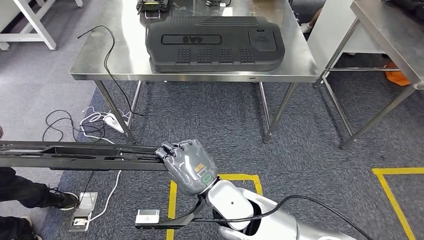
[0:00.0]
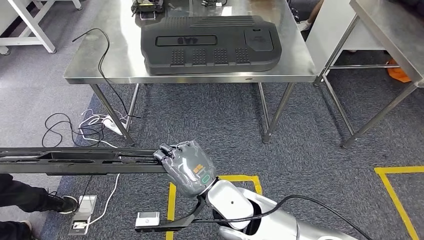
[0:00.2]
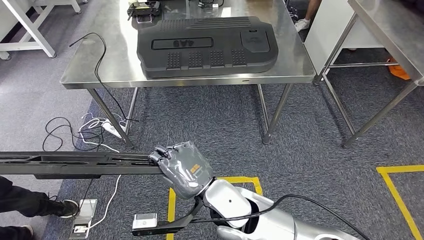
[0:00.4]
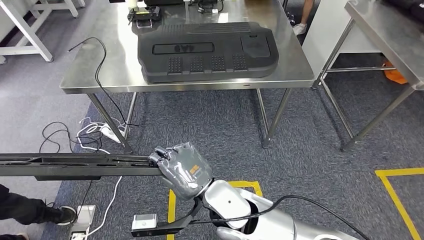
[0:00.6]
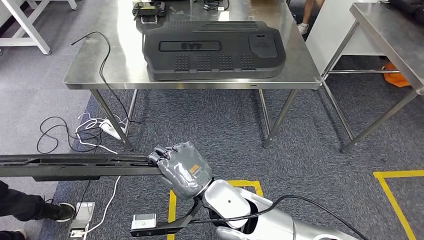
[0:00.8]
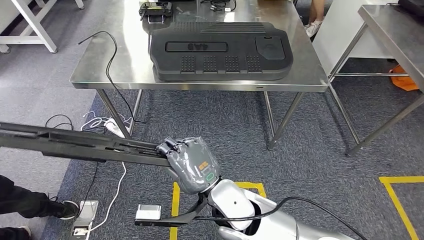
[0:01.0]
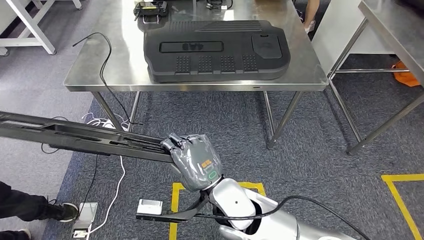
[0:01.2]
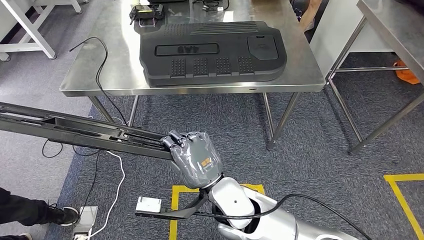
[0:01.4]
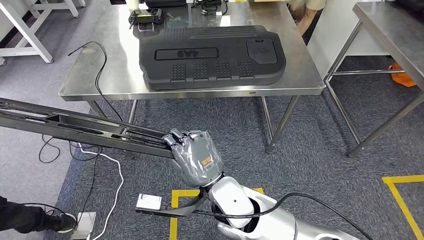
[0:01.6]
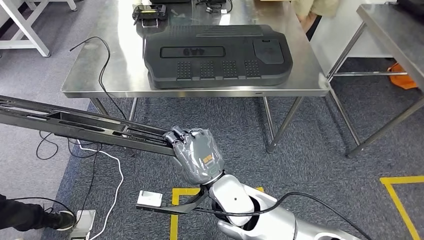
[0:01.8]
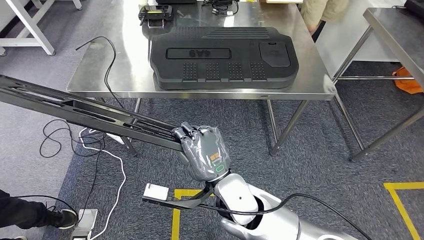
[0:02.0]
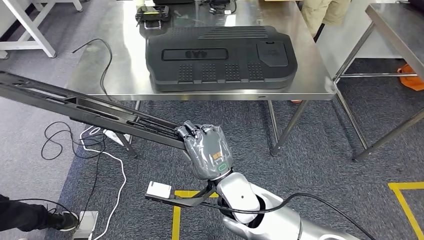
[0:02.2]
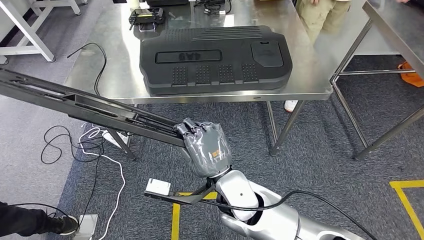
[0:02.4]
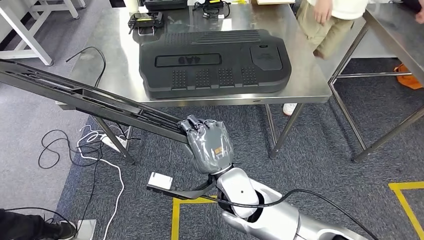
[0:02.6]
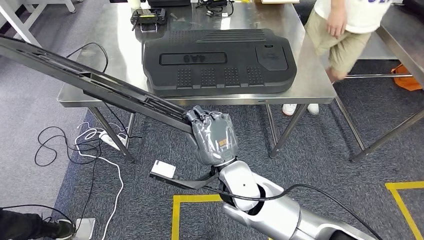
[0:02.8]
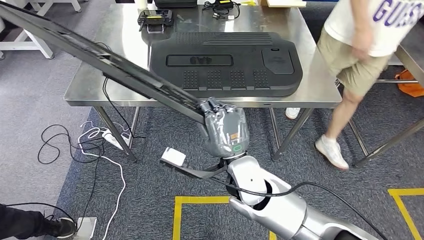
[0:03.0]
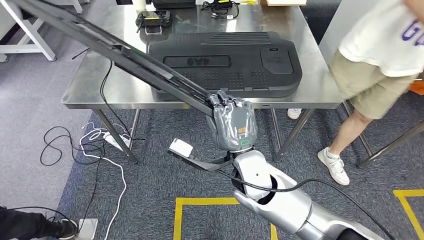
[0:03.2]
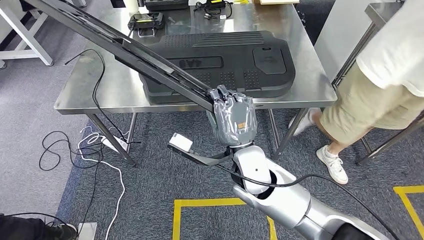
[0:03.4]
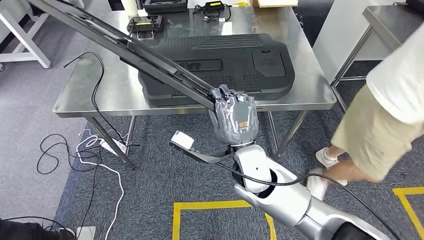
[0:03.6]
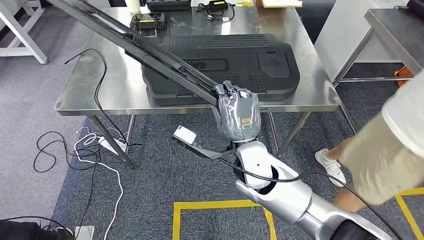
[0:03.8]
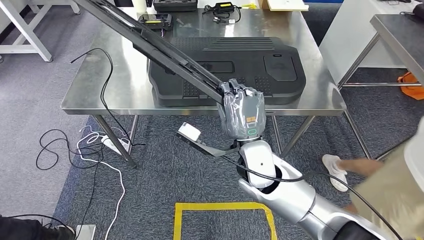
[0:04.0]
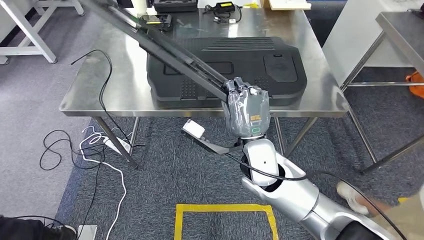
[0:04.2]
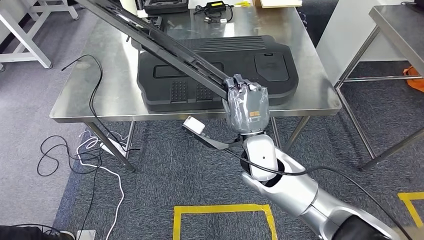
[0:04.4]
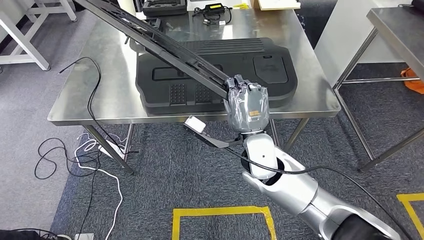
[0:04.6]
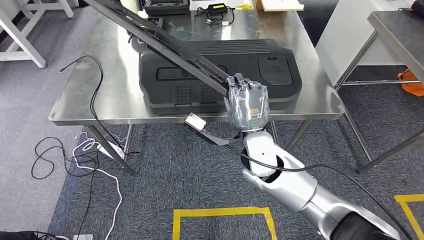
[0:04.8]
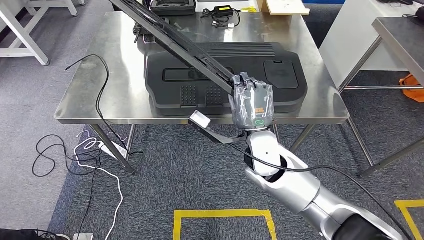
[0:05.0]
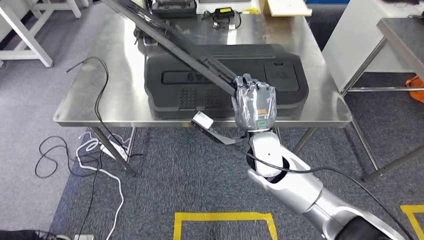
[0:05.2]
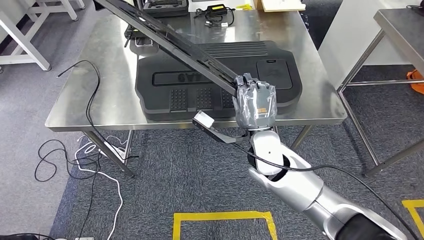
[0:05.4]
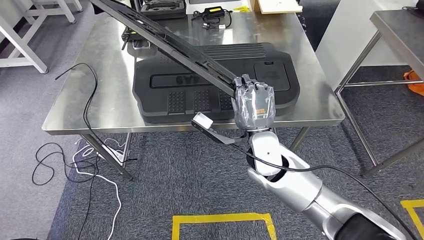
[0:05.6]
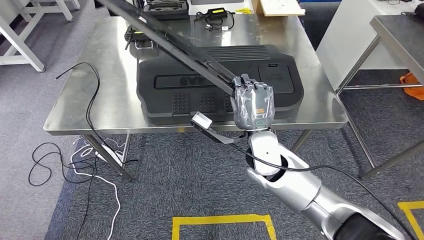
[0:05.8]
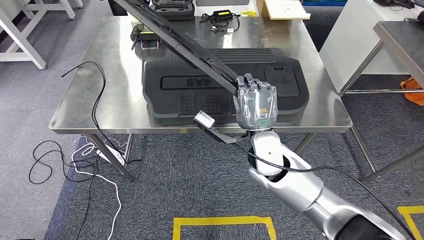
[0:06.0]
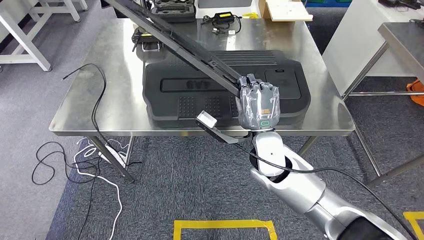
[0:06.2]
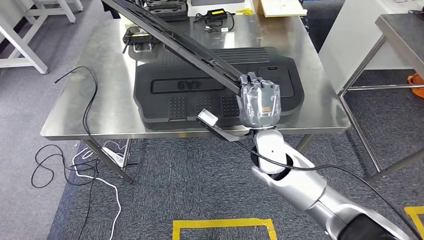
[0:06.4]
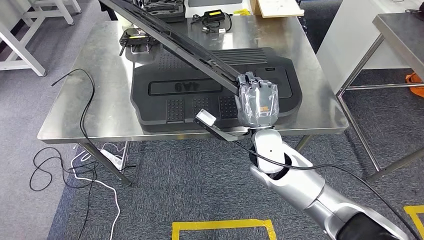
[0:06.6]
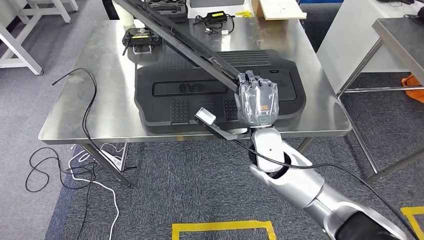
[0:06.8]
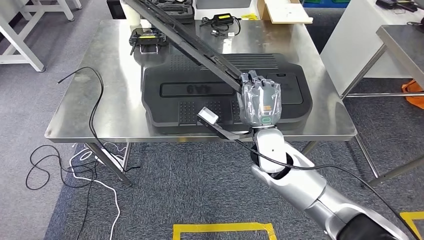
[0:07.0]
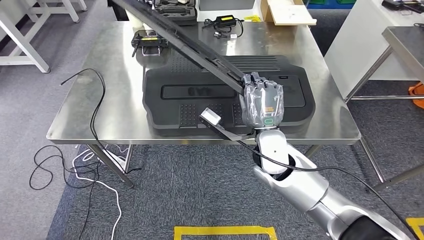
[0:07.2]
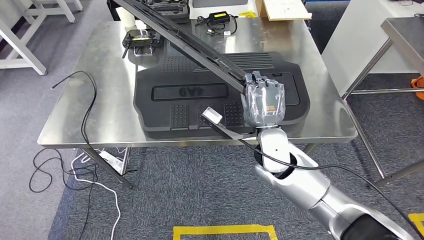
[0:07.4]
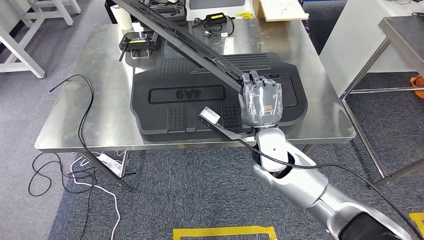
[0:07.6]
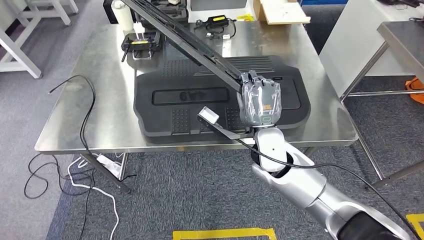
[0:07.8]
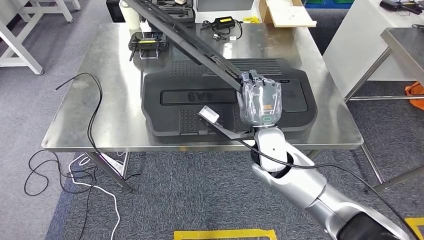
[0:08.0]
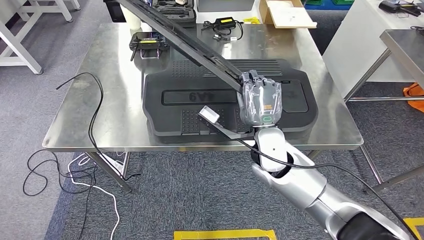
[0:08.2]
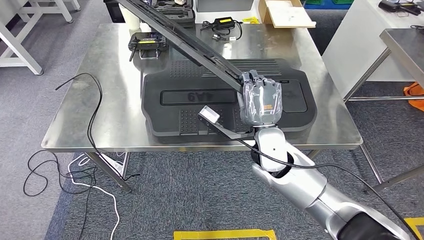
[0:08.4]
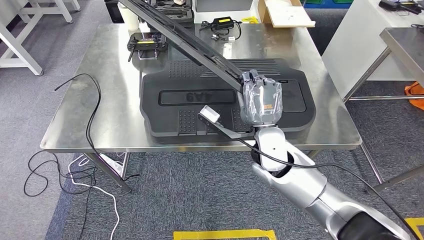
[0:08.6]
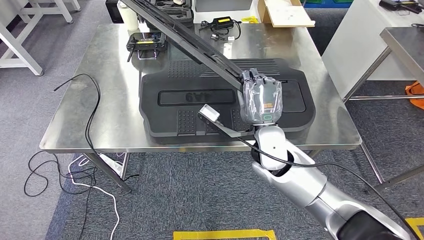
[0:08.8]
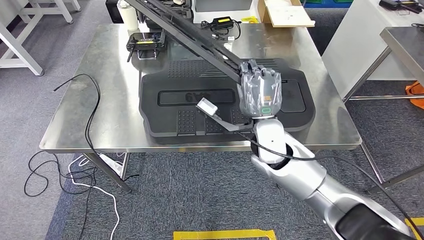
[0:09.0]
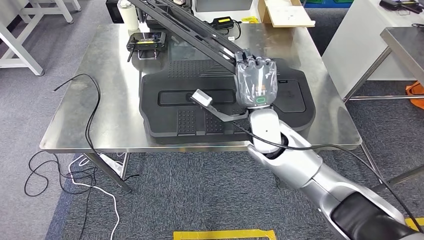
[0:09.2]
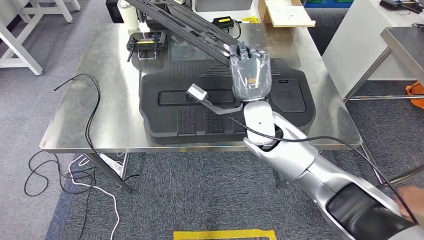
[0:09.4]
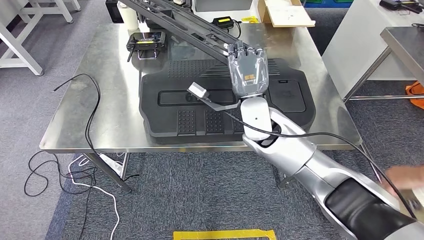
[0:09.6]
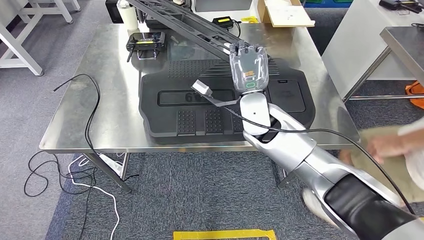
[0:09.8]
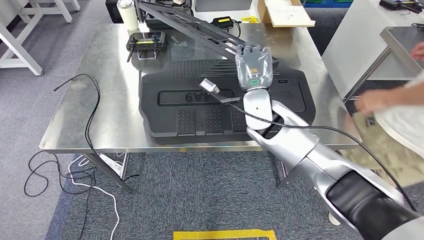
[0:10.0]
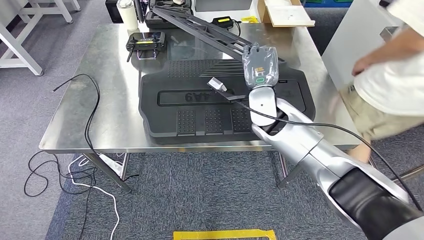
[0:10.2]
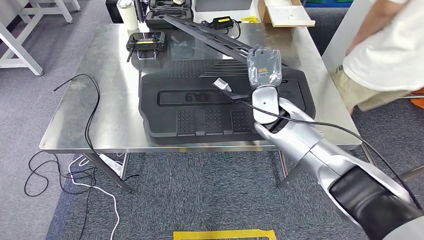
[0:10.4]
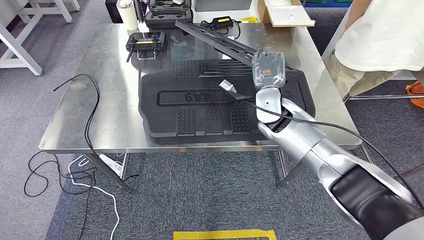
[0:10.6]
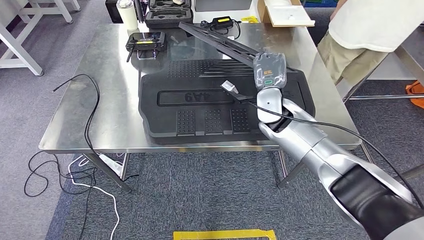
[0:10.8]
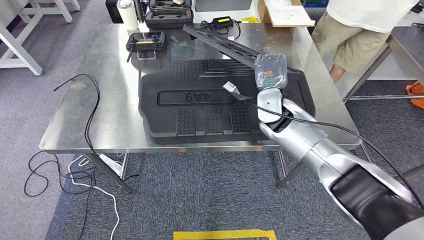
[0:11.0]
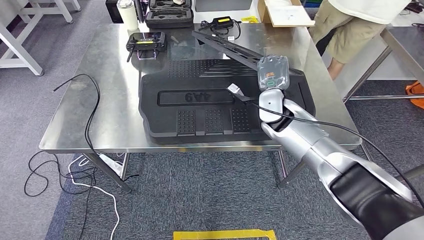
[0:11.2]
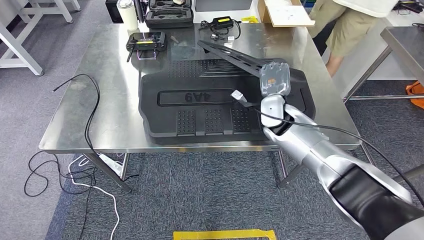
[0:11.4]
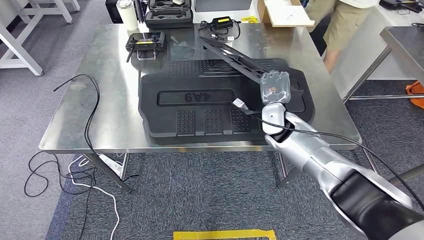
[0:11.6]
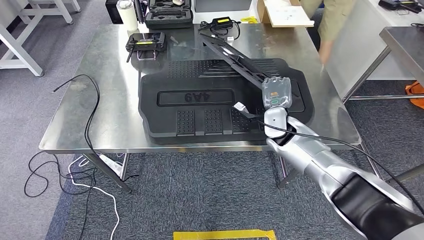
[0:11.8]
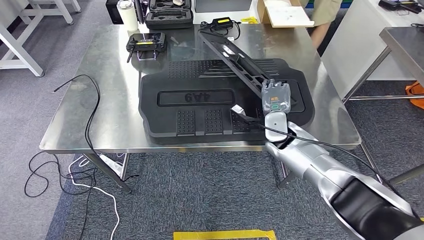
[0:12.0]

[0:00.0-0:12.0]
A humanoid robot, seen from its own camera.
Step, 0:00.0 to 0:02.2: Move the large material to the workbench.

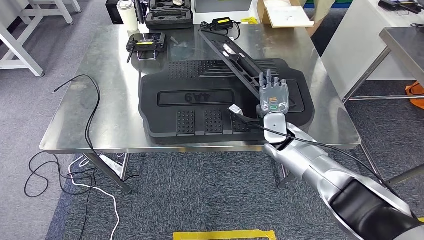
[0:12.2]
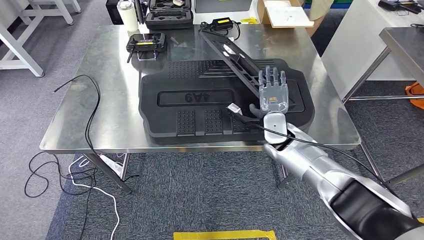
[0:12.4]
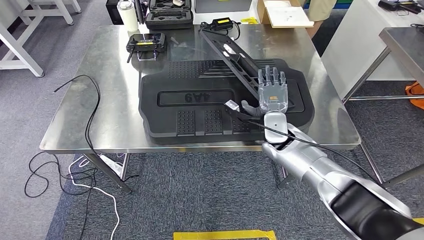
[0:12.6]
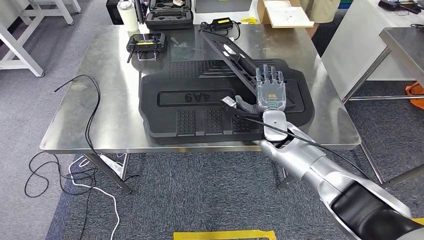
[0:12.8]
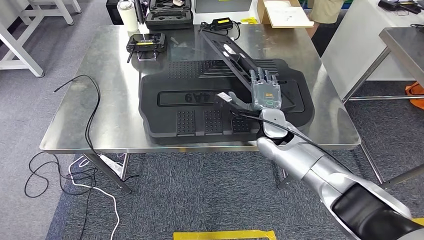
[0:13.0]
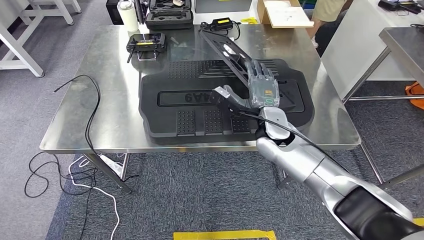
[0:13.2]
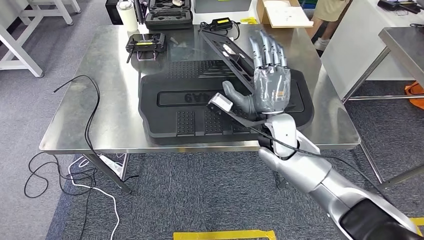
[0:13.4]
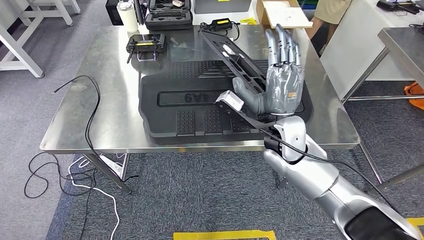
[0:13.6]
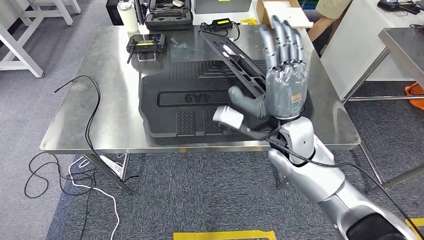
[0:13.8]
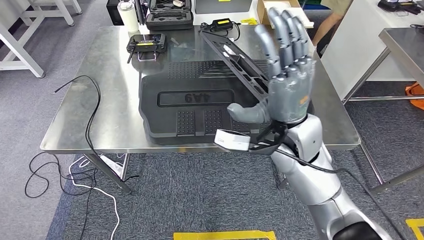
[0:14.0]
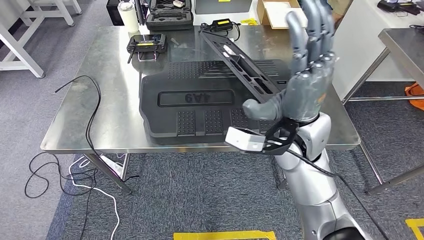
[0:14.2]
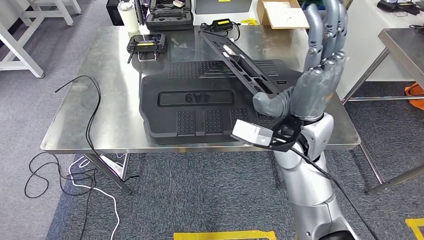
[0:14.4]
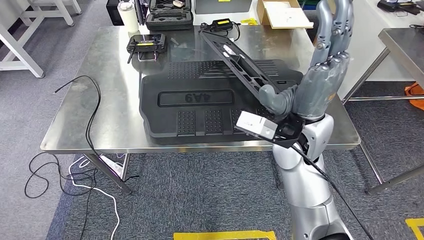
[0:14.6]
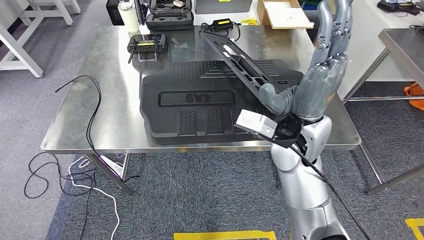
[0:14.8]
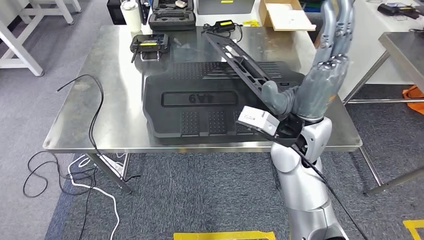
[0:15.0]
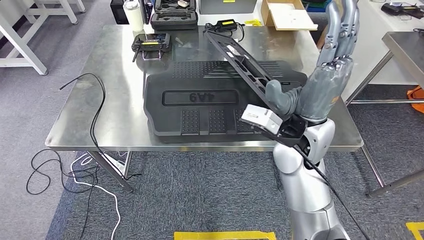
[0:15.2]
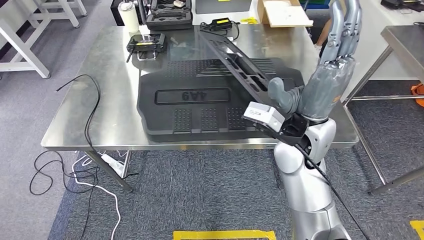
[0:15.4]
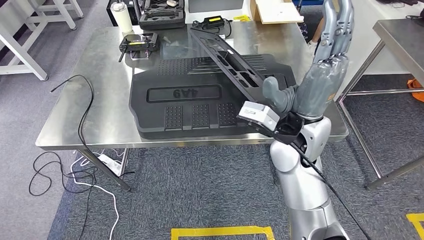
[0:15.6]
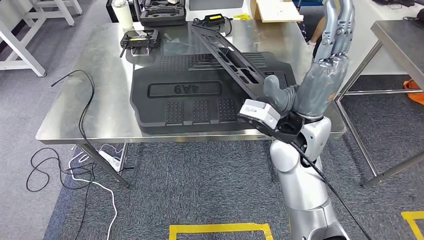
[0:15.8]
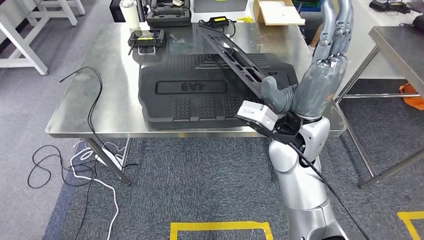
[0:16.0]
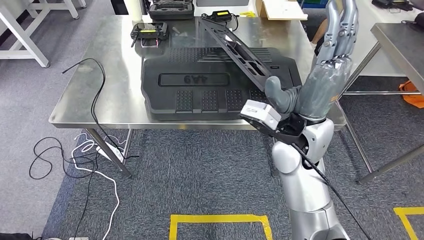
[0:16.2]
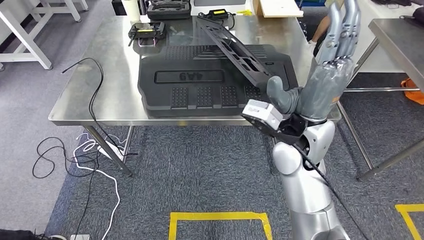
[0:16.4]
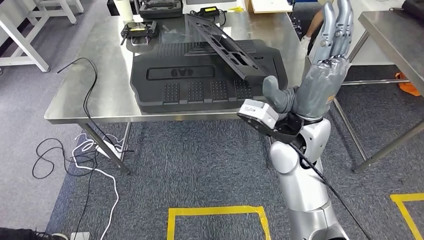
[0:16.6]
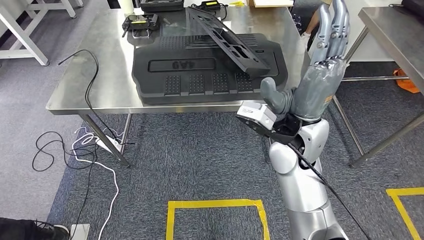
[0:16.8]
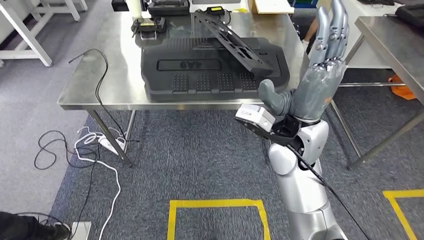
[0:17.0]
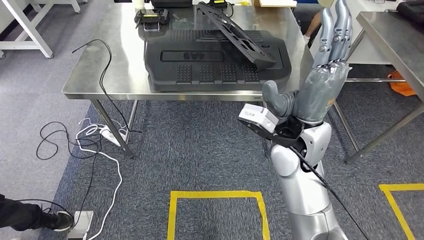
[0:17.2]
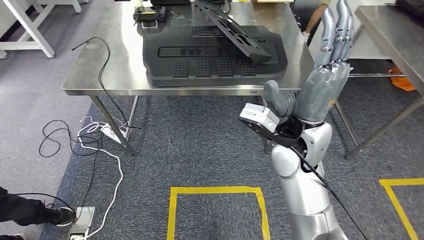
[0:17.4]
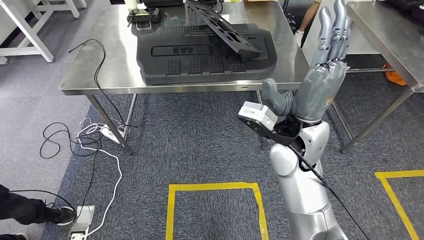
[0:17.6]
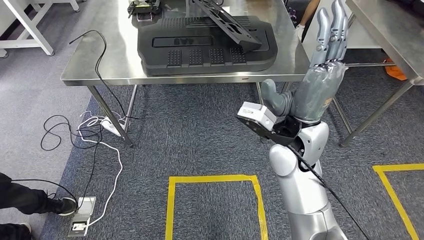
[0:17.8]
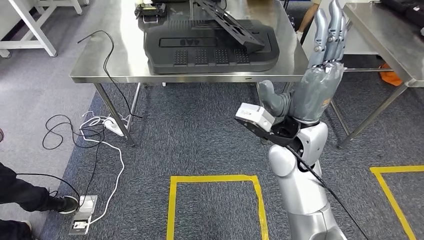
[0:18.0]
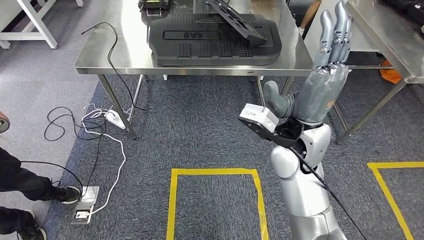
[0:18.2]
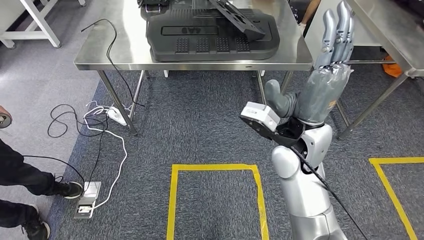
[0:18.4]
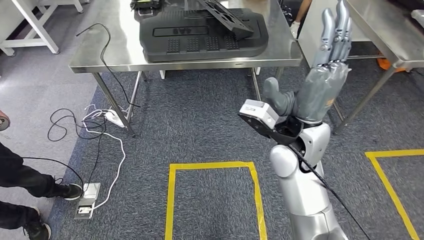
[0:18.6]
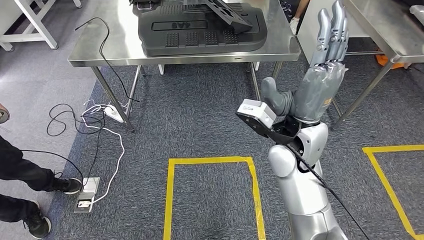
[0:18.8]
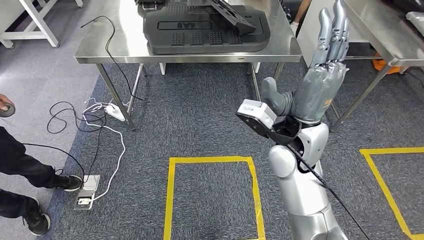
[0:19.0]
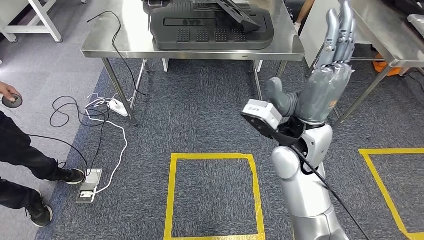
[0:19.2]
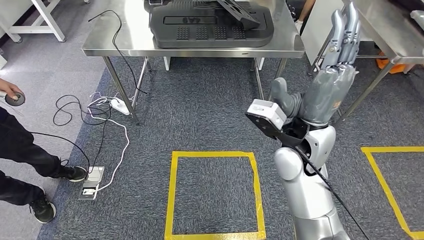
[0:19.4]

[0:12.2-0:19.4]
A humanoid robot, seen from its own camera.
Step, 0:12.2 to 0:17.8: Insert the large material into the corresponding slot on the workbench.
0:12.2 to 0:13.6: The right hand shifts roughly 15 cm upward and backward.
